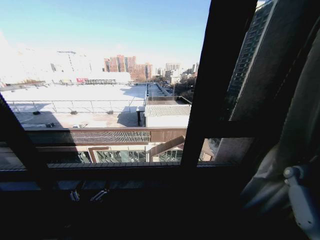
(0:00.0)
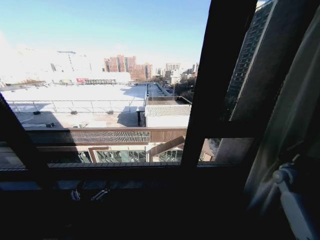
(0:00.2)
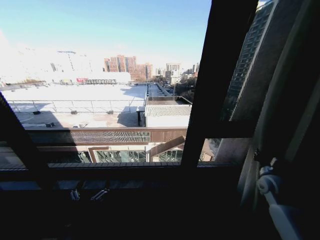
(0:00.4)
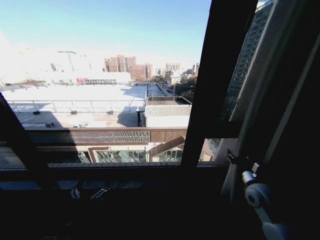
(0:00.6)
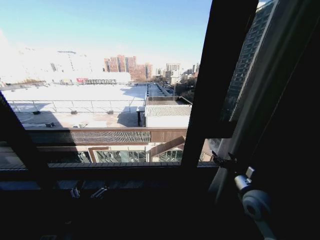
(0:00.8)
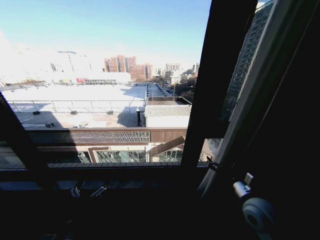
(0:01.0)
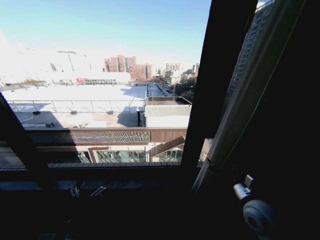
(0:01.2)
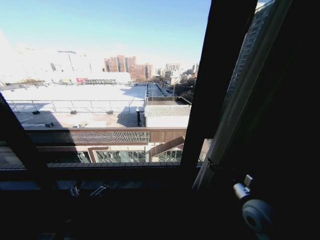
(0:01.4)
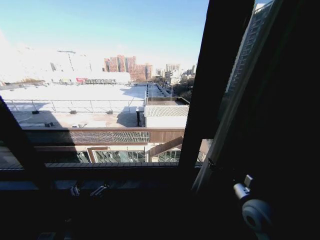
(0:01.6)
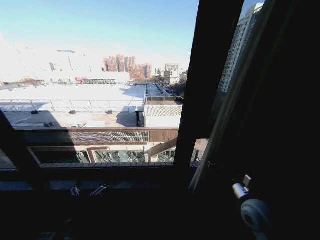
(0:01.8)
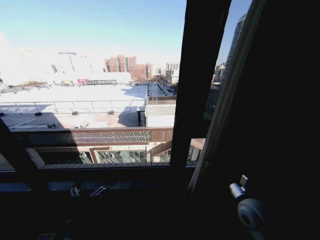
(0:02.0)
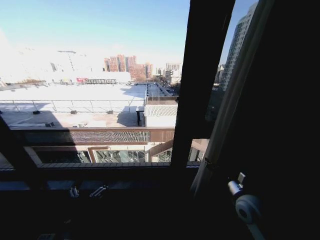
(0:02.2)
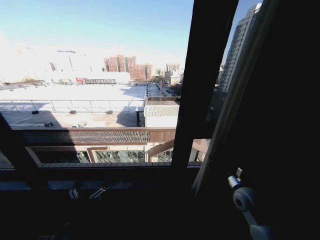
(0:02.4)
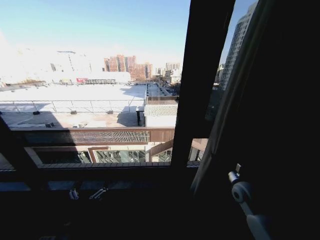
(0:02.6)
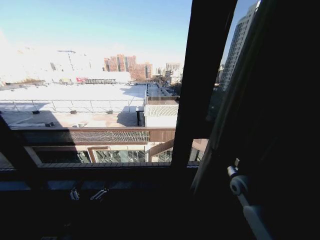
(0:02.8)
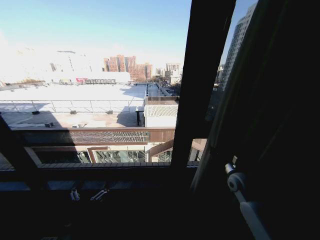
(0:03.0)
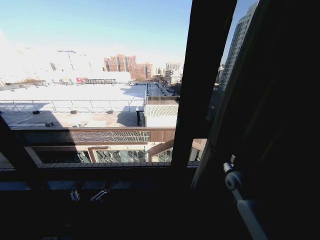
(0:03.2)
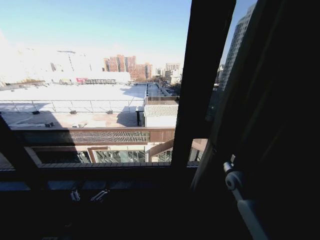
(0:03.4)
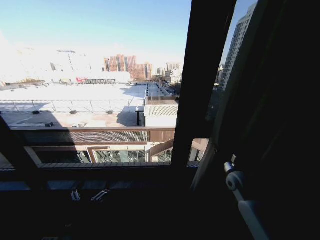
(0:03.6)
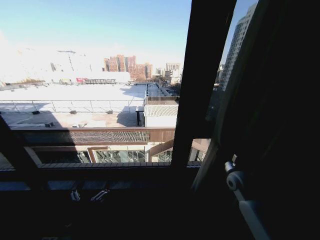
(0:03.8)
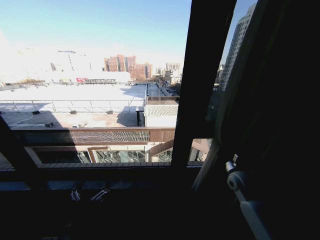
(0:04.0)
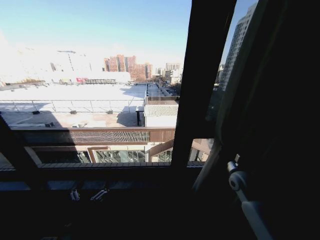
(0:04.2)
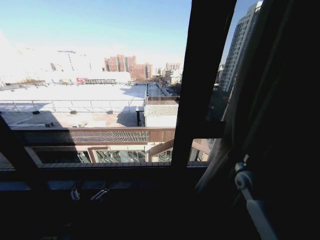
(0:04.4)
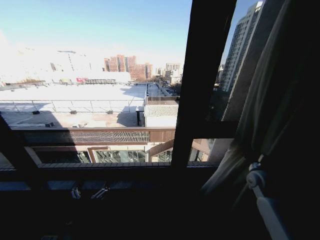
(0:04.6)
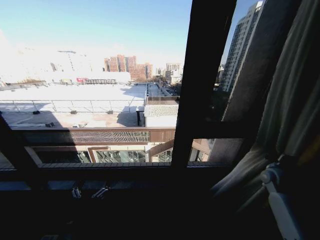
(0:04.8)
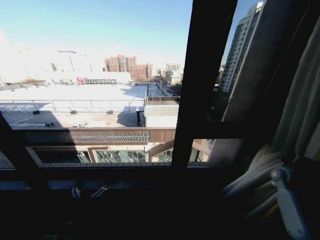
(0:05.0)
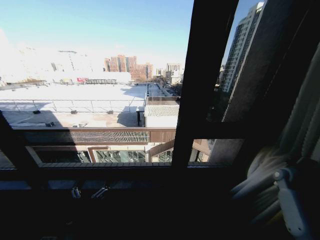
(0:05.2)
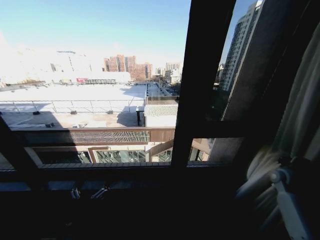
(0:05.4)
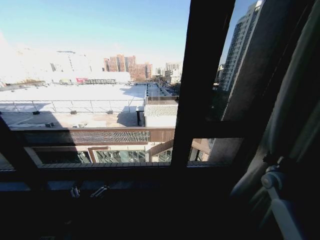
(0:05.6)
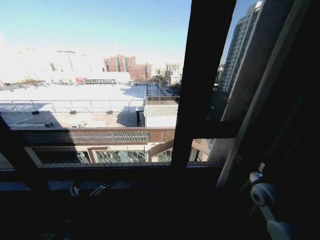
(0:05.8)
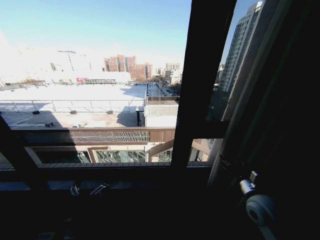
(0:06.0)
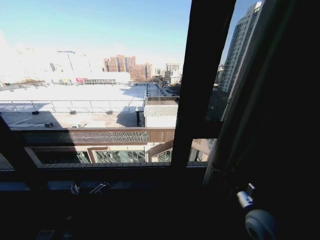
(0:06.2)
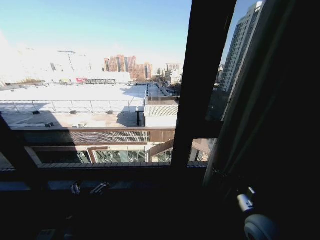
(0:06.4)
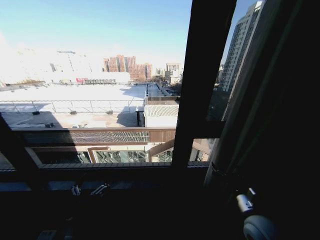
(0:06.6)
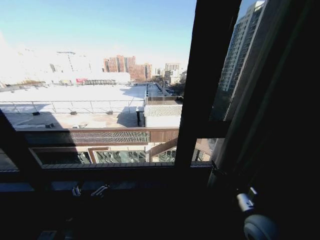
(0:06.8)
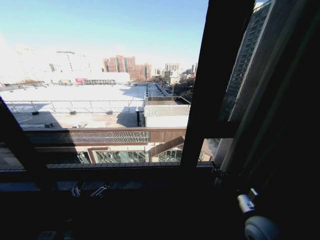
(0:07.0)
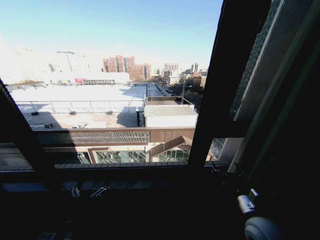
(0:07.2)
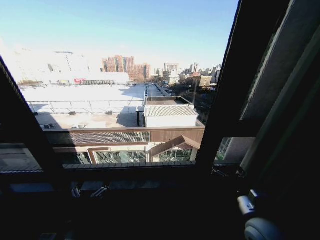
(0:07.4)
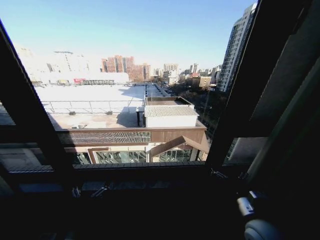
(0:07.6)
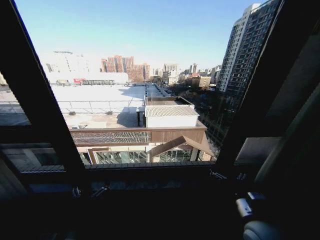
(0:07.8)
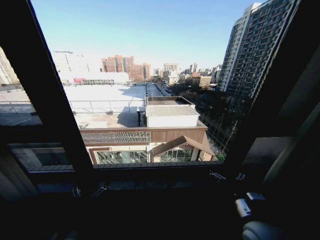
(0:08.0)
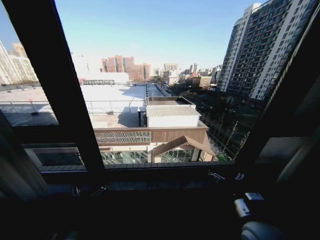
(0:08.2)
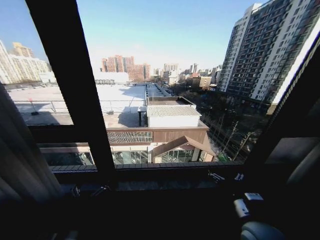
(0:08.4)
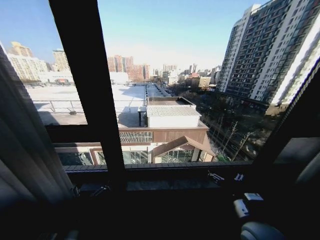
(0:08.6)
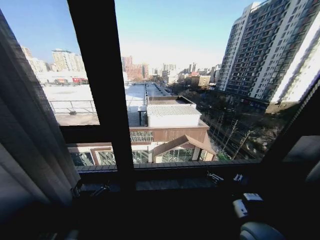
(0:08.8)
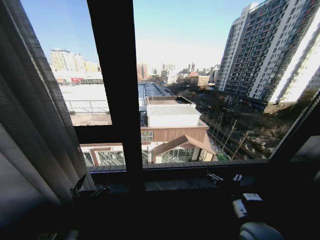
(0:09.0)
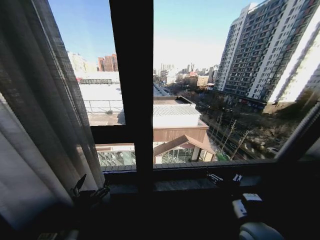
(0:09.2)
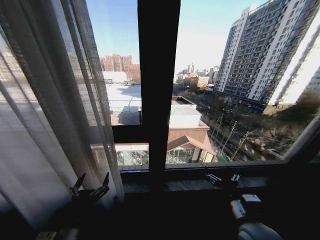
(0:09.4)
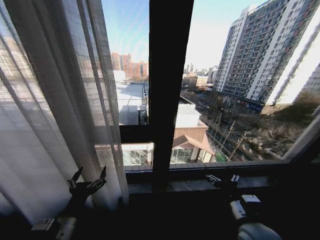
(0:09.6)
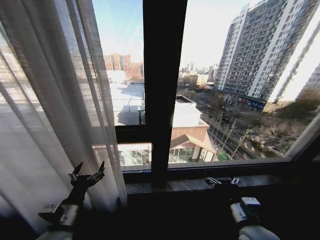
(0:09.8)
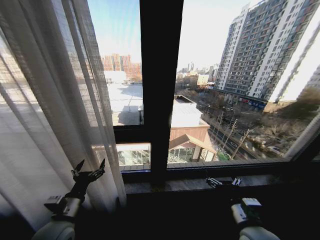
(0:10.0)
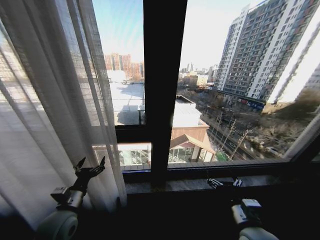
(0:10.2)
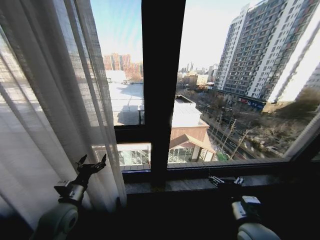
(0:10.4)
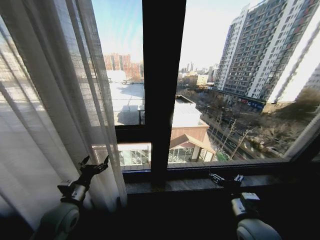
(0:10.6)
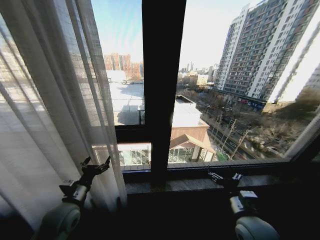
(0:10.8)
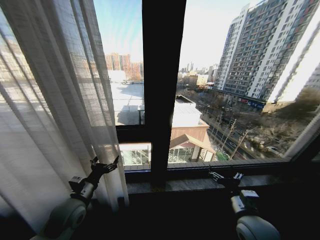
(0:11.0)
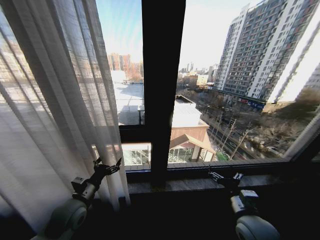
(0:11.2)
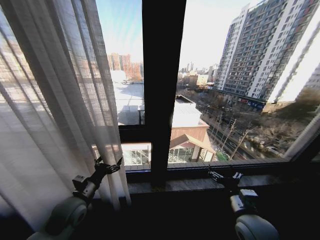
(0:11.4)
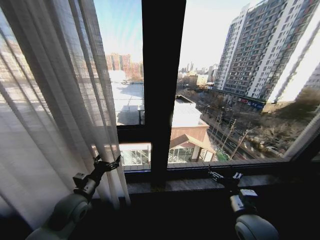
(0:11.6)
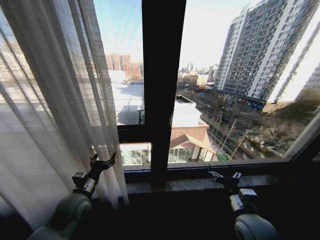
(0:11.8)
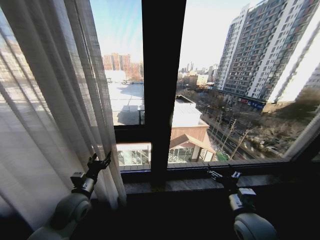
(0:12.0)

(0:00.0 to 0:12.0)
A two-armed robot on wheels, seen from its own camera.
Task of the whole recording: Open the curtains by pulling them apart, changing their state from closed to fully open.
0:00.0 - 0:01.6: The right gripper is displaced to the left and backward by about 35 cm, and opens its fingers.
0:01.6 - 0:03.0: The right gripper goes some 15 cm forward.
0:03.0 - 0:04.4: The right gripper closes.
0:04.4 - 0:06.0: The right gripper shifts about 10 cm backward, travels to the right and back again, about 20 cm each way, and opens its fingers.
0:06.0 - 0:07.6: The right gripper travels backward and to the left by roughly 10 cm.
0:09.0 - 0:10.4: The left gripper heads forward and to the left, covering some 15 cm.
0:10.4 - 0:12.0: The grippers make only small movements.

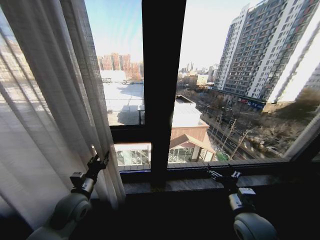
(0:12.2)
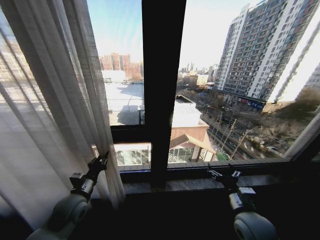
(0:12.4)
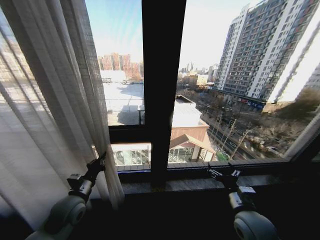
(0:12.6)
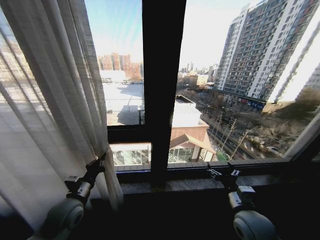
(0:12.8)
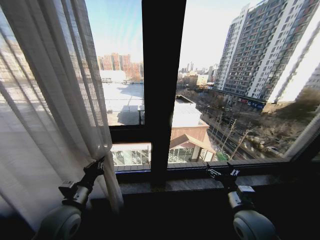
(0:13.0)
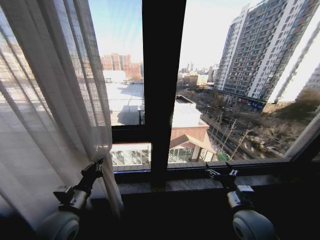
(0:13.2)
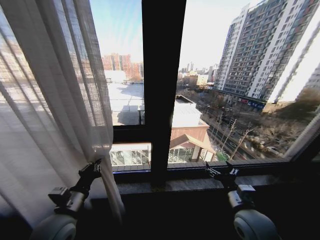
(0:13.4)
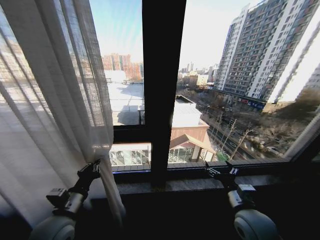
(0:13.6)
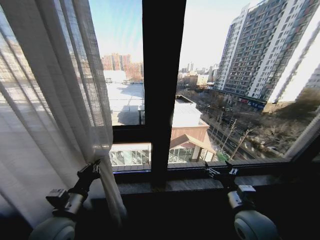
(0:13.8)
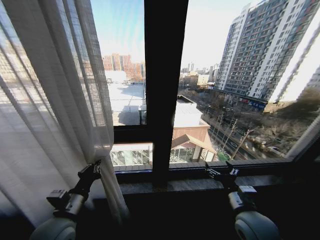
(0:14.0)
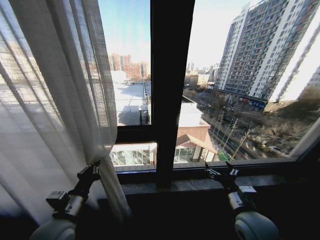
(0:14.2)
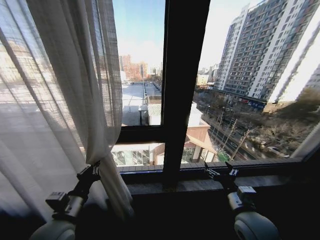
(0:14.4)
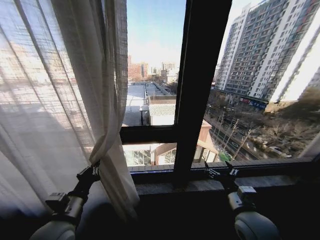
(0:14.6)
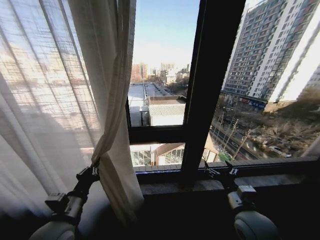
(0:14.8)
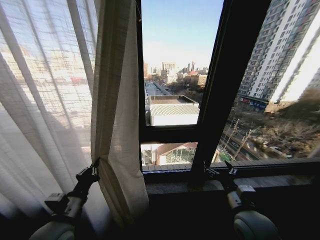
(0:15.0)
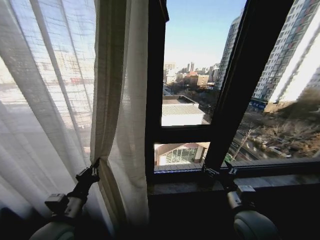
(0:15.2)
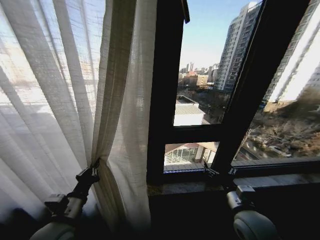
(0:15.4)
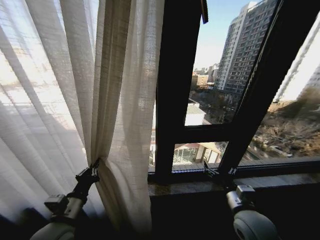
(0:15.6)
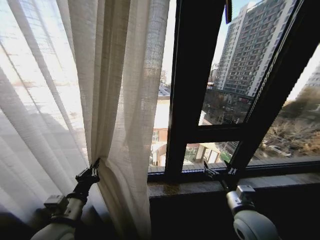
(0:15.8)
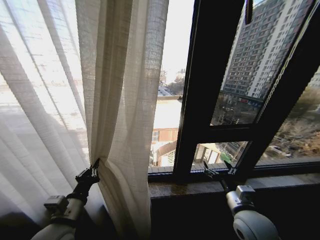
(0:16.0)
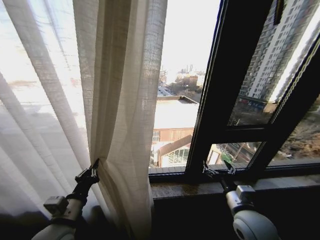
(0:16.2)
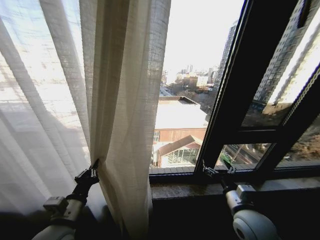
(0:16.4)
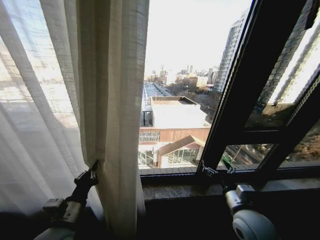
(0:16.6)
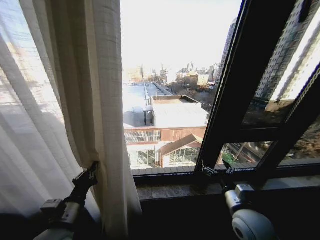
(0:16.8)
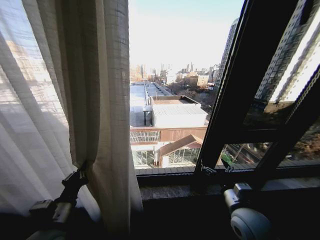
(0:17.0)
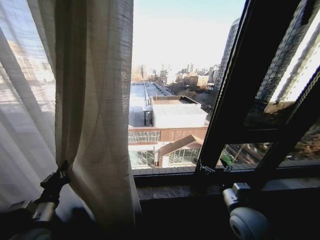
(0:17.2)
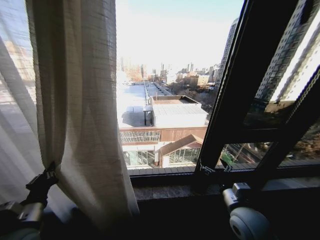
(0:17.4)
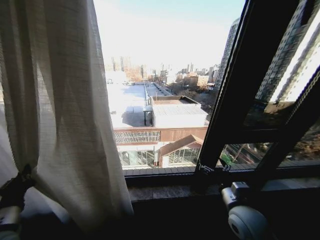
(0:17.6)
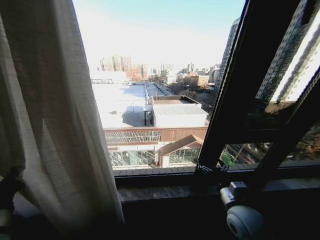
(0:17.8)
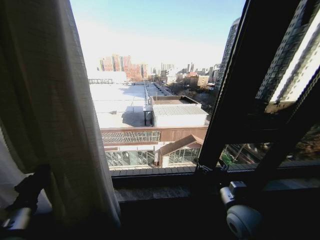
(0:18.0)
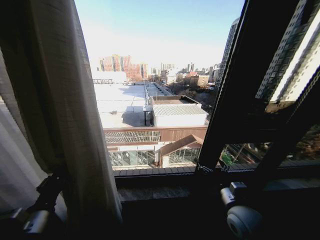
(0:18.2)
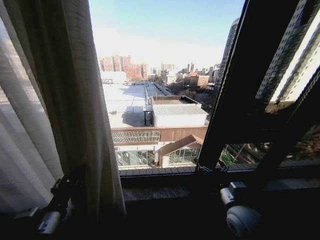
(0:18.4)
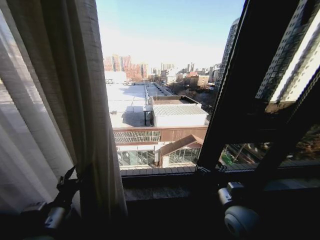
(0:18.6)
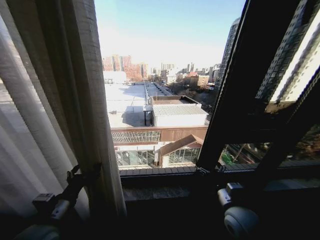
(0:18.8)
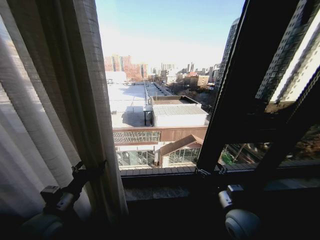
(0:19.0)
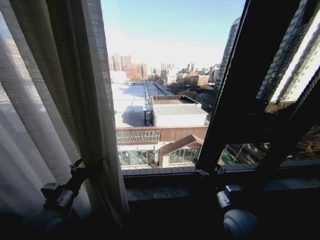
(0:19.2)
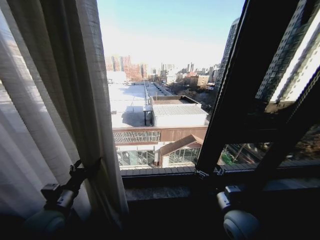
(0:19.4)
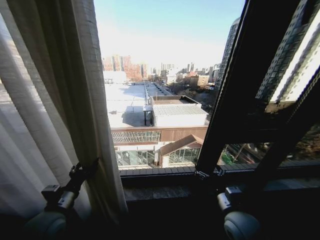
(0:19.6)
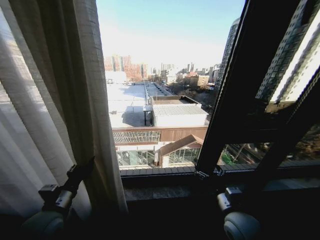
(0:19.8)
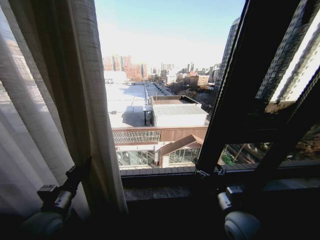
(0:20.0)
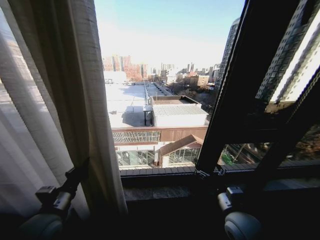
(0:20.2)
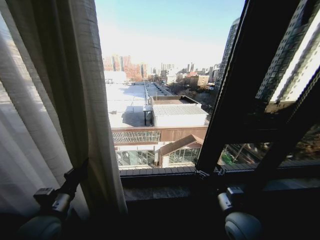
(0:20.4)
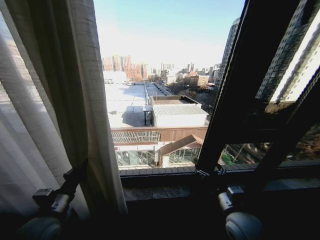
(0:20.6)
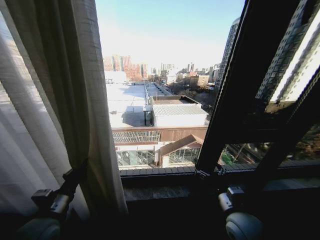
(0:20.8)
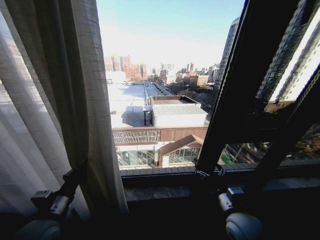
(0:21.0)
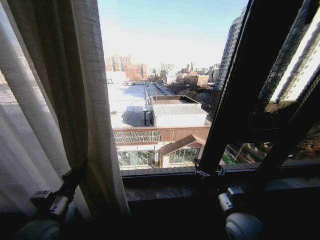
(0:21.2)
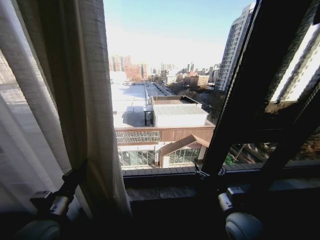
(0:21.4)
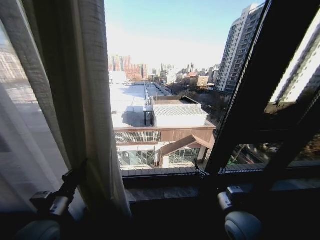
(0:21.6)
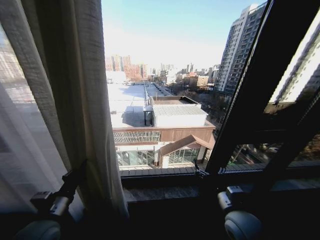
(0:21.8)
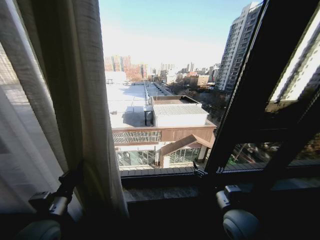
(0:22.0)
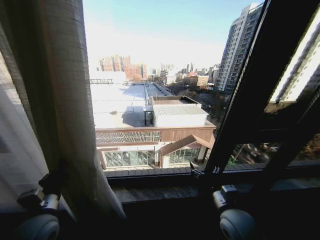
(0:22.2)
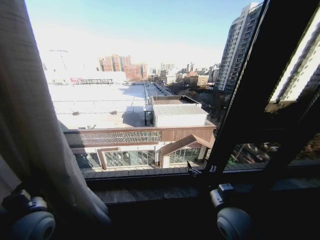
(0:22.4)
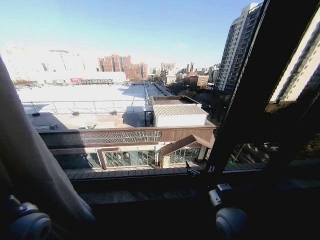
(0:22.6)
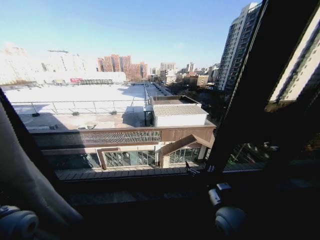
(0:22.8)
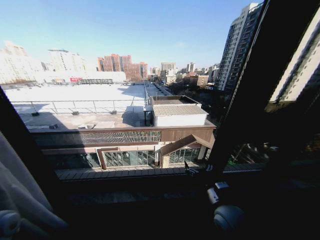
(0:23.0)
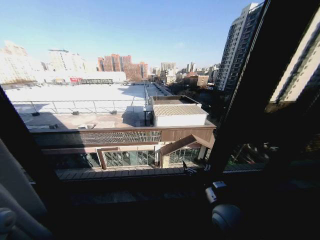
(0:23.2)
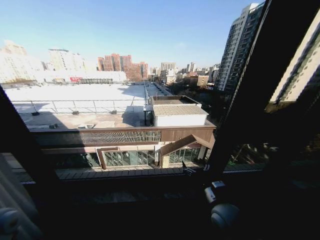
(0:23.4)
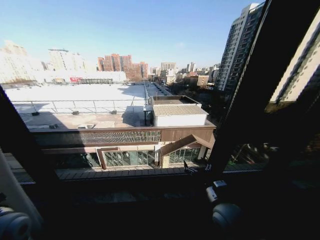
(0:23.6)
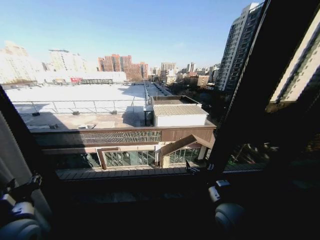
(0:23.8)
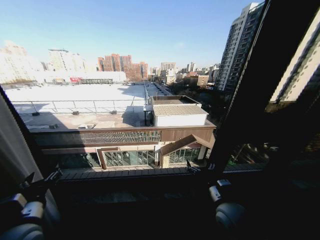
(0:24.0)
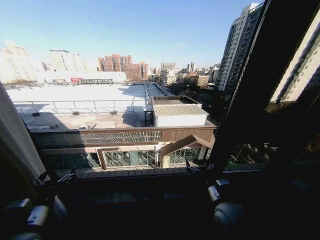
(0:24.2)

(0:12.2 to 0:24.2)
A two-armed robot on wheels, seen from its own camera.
Task of the whole recording: Open the curtains by pulling them apart, changing their state from closed to fully open.
0:12.2 - 0:13.8: The left gripper travels backward by some 10 cm, and closes.
0:16.6 - 0:18.2: The left gripper goes roughly 5 cm to the left.
0:18.2 - 0:19.8: The left gripper moves forward, about 5 cm, and opens, then closes once more.
0:19.8 - 0:21.2: The left gripper closes its fingers.
0:22.6 - 0:24.2: The left gripper moves backward, roughly 5 cm, goes to the left and returns, approximately 10 cm each way, and opens its fingers.
